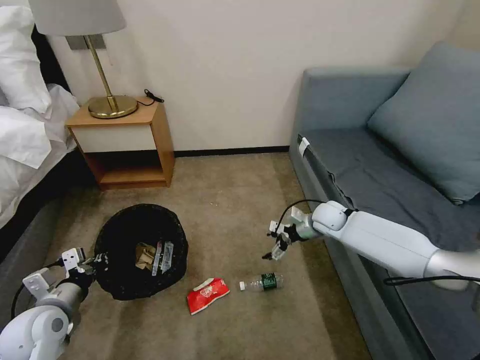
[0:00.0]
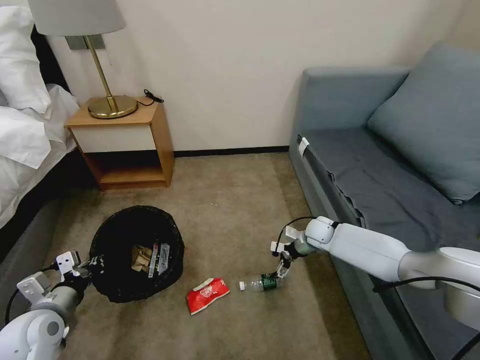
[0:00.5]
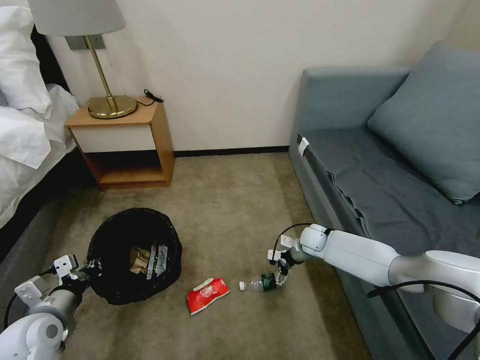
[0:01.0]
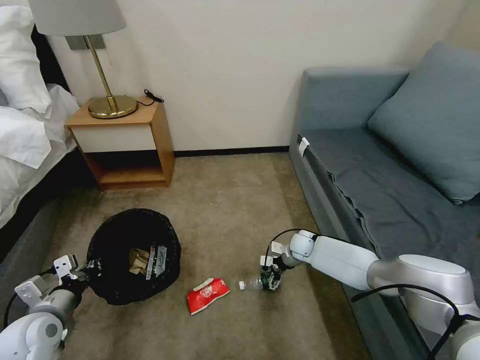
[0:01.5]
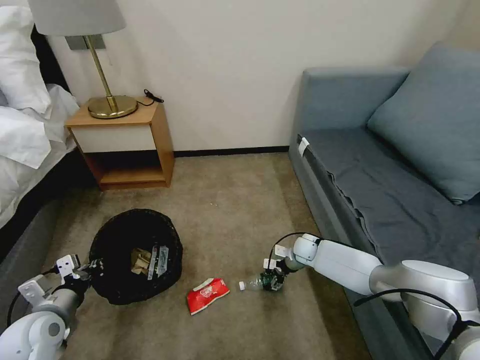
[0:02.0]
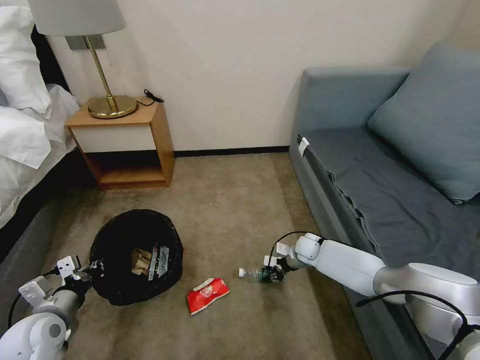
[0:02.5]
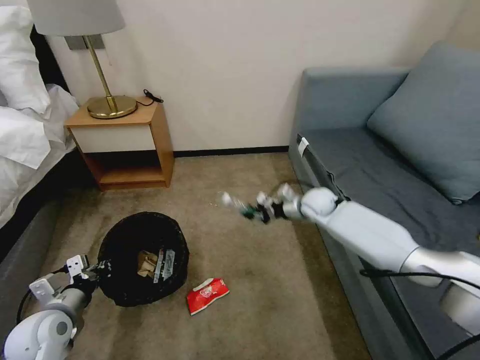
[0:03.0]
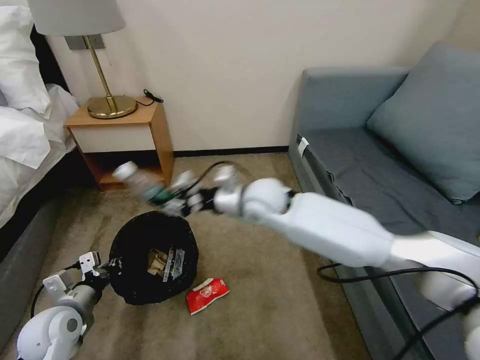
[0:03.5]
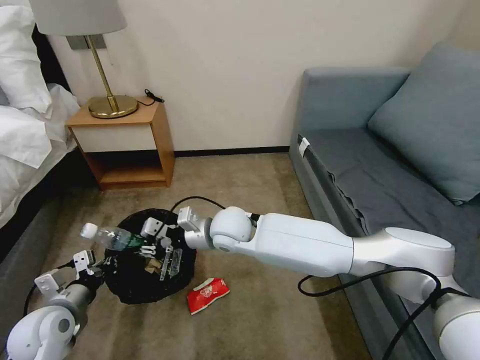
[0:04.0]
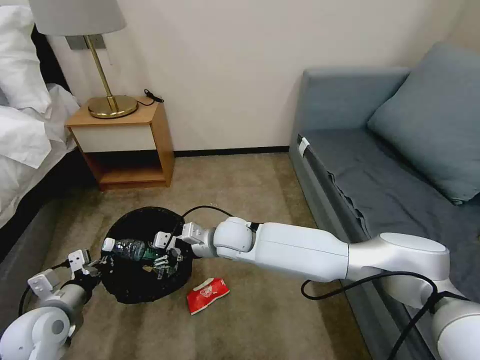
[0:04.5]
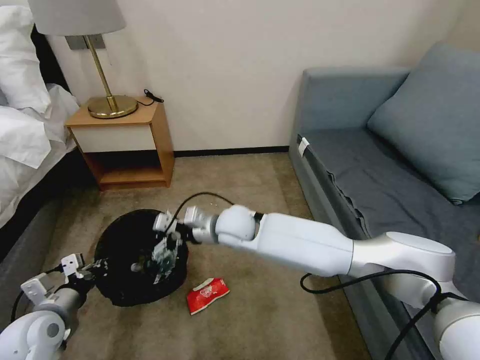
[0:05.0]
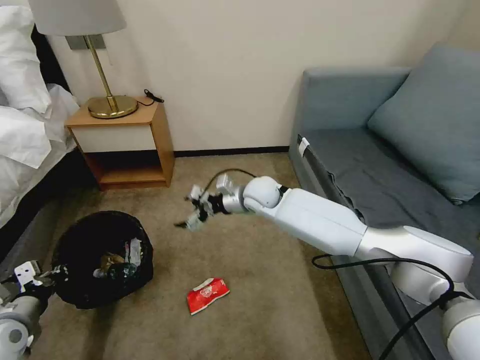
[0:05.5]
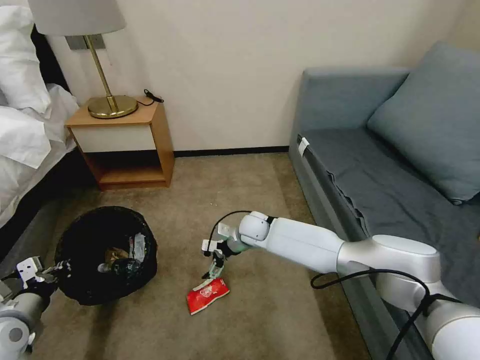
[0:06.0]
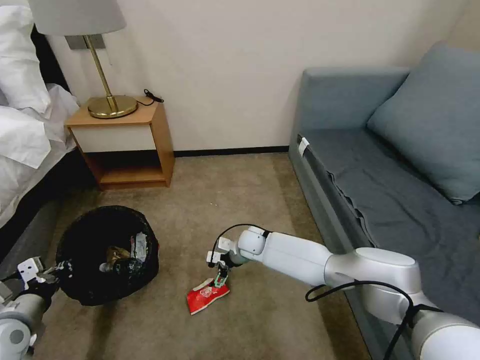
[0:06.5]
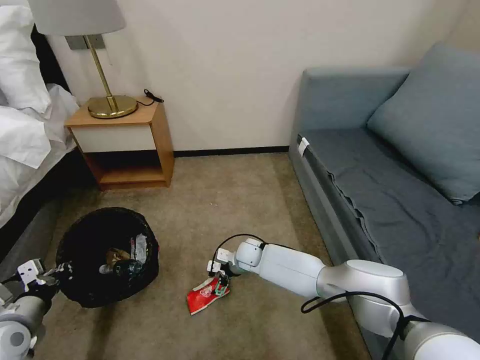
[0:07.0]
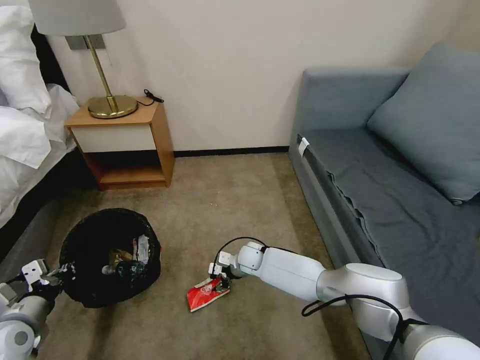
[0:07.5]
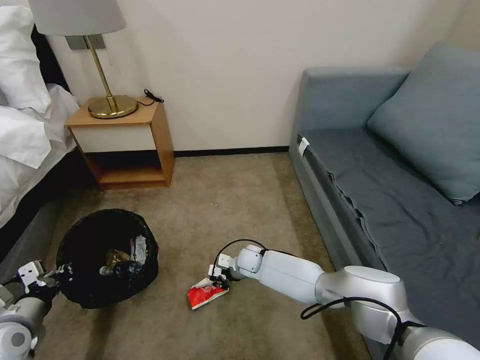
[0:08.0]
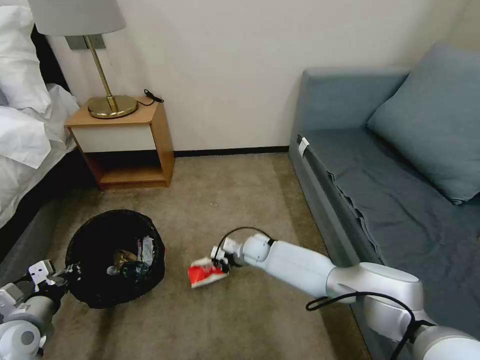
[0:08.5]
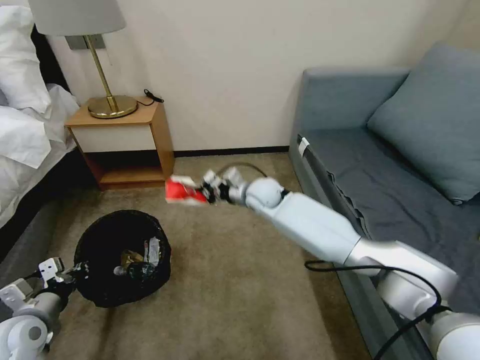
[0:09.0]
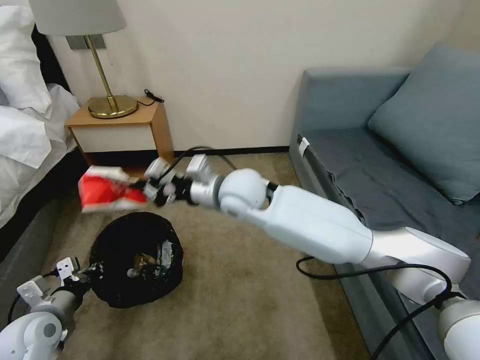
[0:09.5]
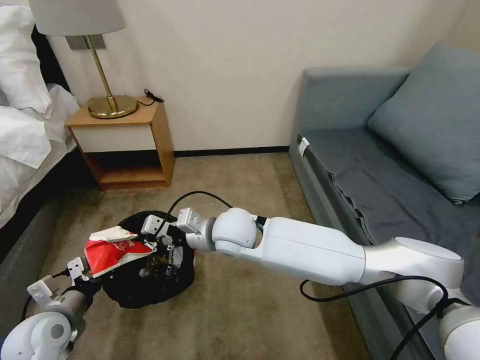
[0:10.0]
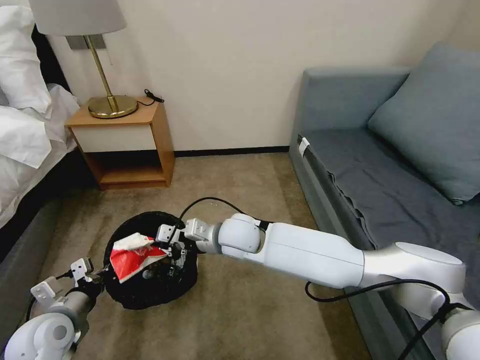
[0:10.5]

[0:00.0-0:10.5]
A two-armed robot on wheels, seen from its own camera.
Task of the whole recording: Pick up the trash bin, then pick up the garbage on the floor and place it into the trash bin.
0:00.0 to 0:02.0: The right gripper goes roughly 15 cm downward.
0:02.0 to 0:04.0: The right gripper heads to the left and upward, covering about 35 cm, and closes up.
0:04.0 to 0:06.5: The left gripper moves to the left, some 5 cm. The right gripper goes roughly 20 cm downward and forward, and opens up.
0:06.5 to 0:08.5: The right gripper closes.
0:08.5 to 0:10.5: The left gripper heads to the right, covering some 5 cm; the right gripper shifts approximately 20 cm upward and backward.

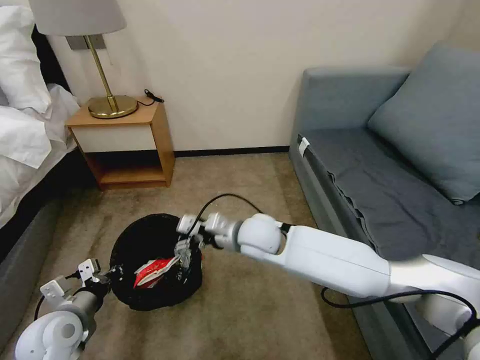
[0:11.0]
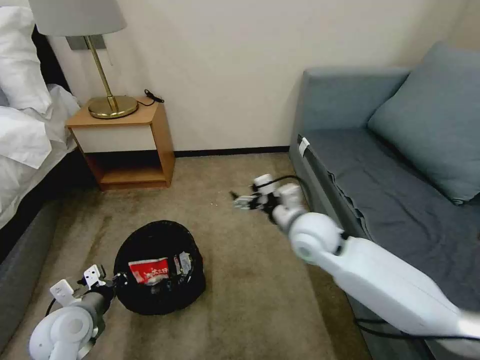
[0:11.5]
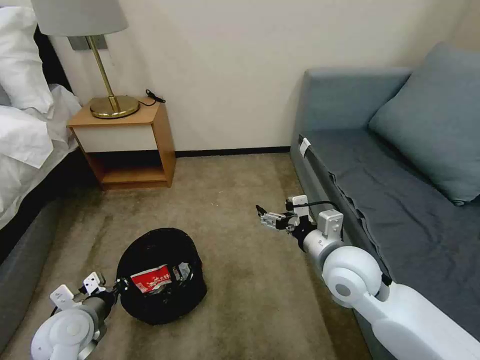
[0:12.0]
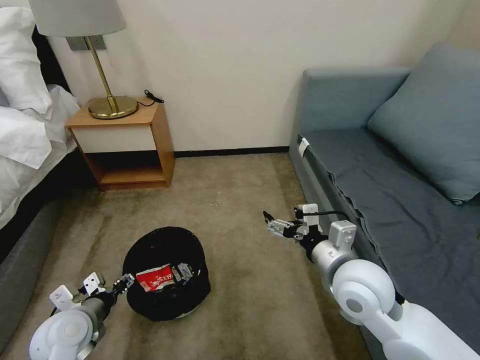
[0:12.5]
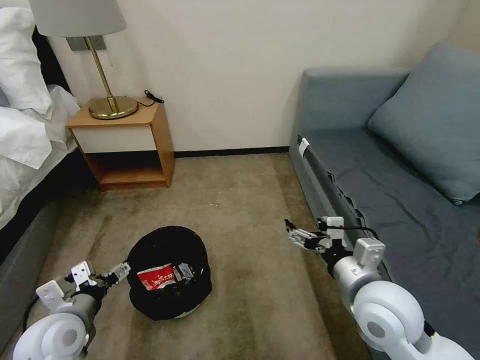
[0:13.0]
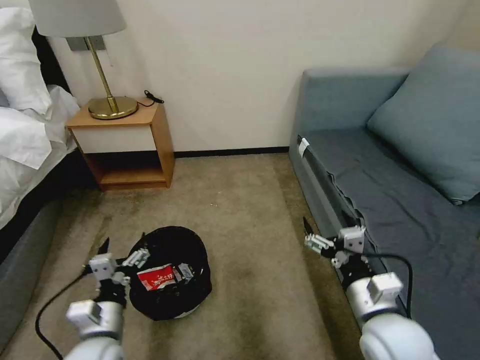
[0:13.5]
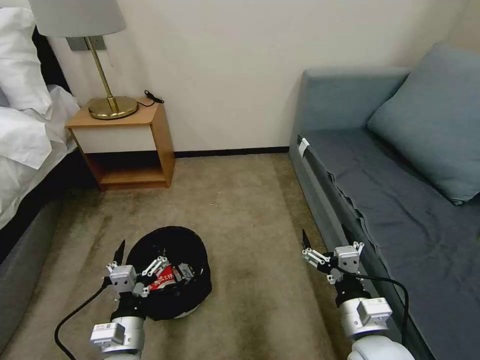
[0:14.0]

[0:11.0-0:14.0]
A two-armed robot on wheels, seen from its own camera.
Task of the whole recording: Pick up the trash bin, then pick up the garbage on the floor and place it into the trash bin.
0:11.0 to 0:12.5: The left gripper opens its fingers, while the right gripper travels to the right and backward by some 20 cm.
0:12.5 to 0:14.0: The right gripper travels backward and downward by about 15 cm, while the left gripper travels to the right and backward by approximately 15 cm.

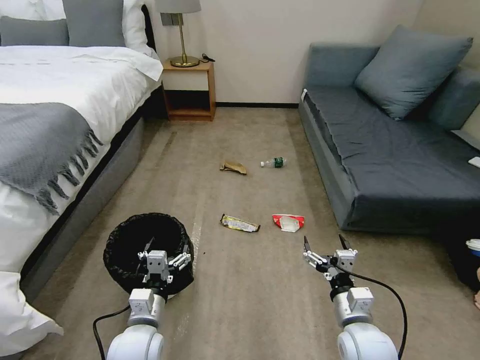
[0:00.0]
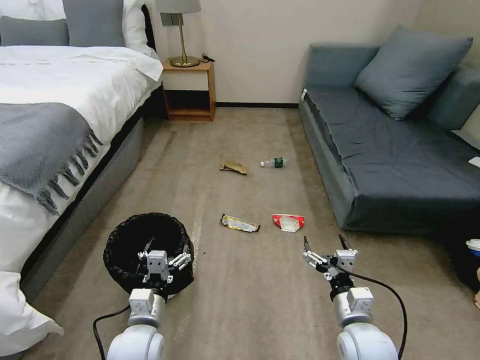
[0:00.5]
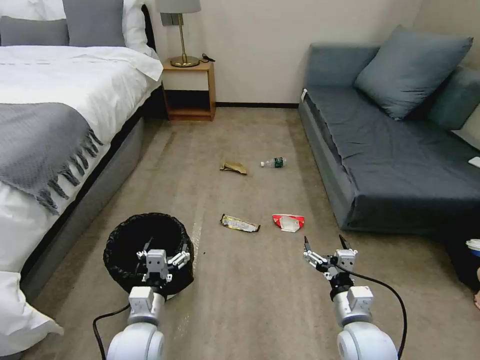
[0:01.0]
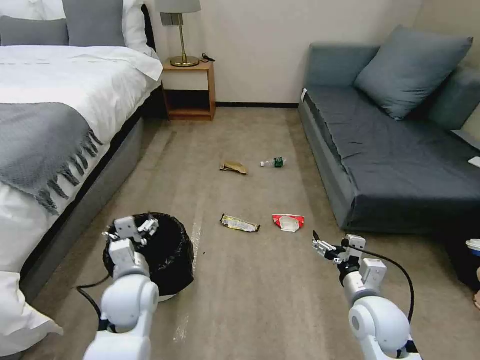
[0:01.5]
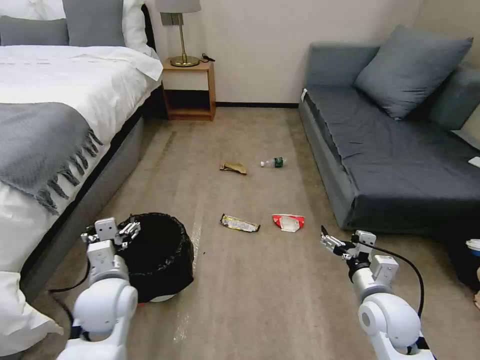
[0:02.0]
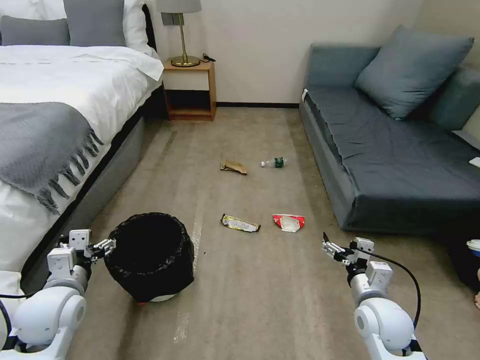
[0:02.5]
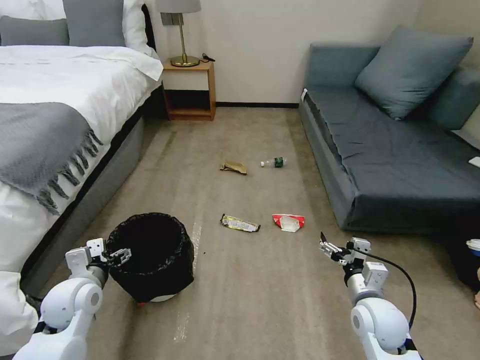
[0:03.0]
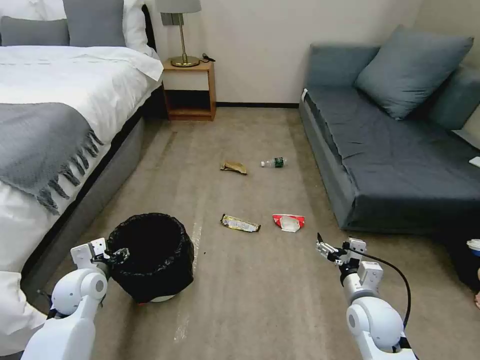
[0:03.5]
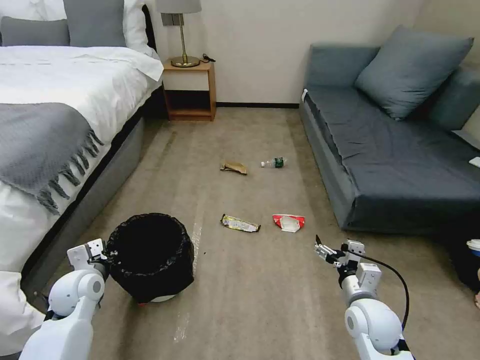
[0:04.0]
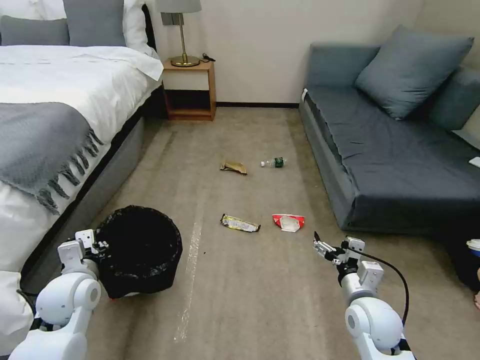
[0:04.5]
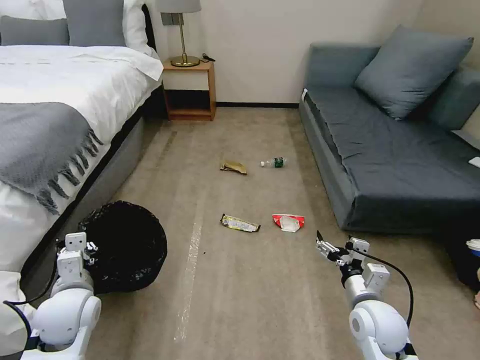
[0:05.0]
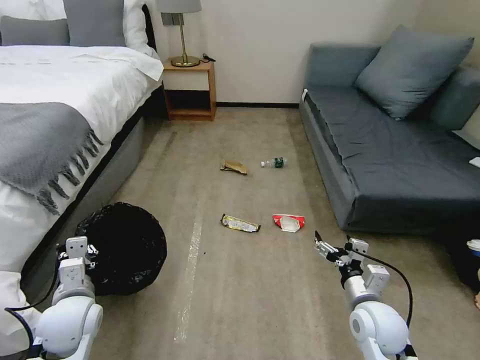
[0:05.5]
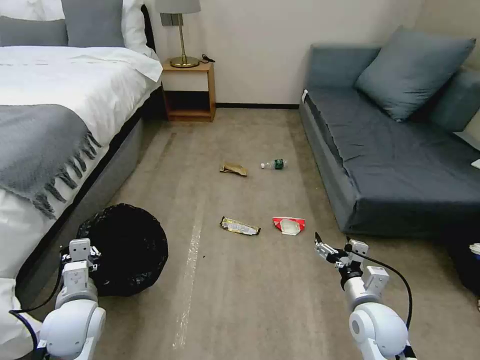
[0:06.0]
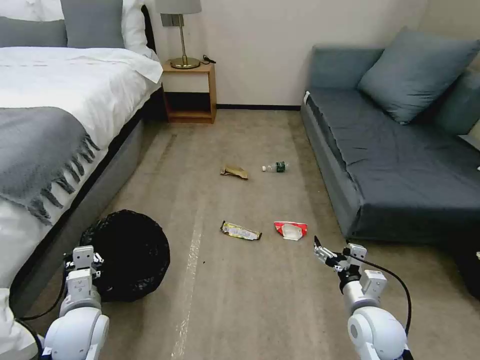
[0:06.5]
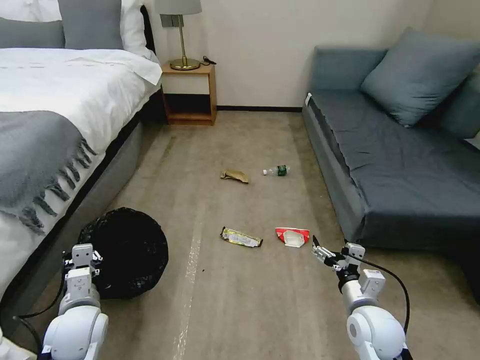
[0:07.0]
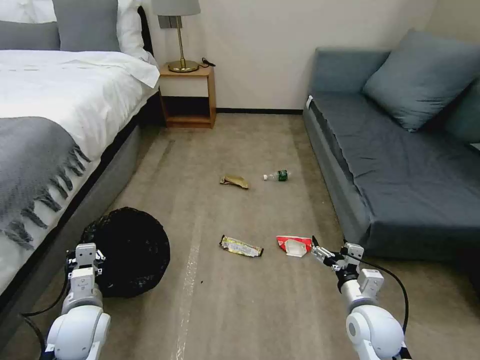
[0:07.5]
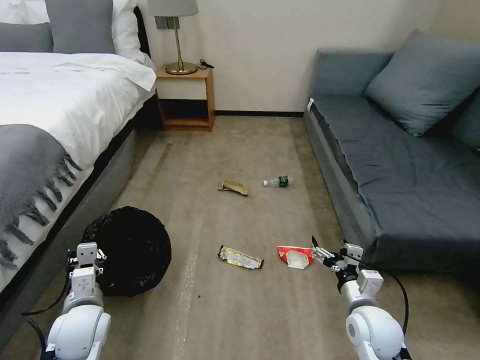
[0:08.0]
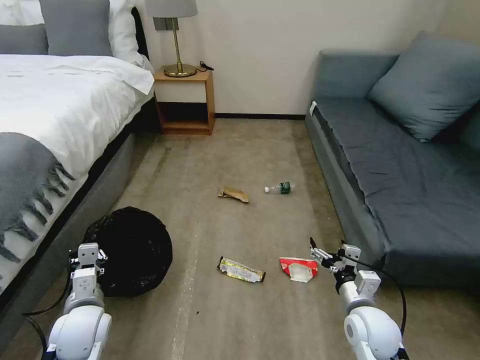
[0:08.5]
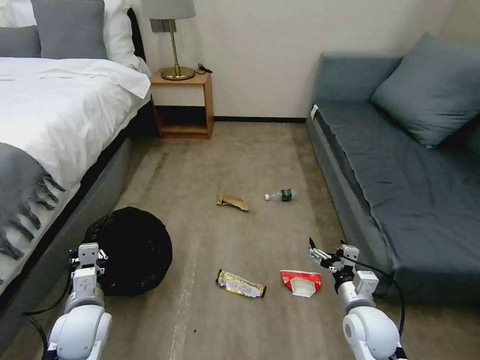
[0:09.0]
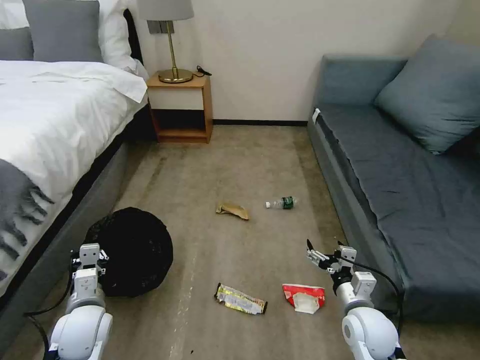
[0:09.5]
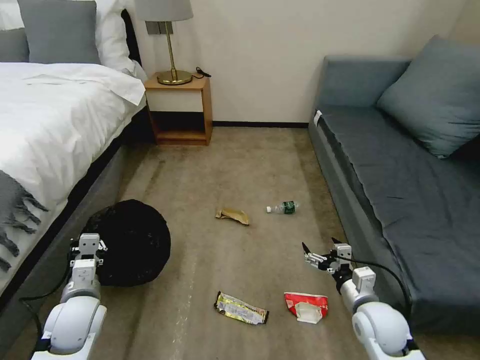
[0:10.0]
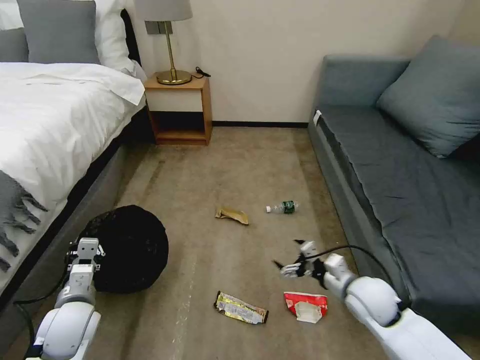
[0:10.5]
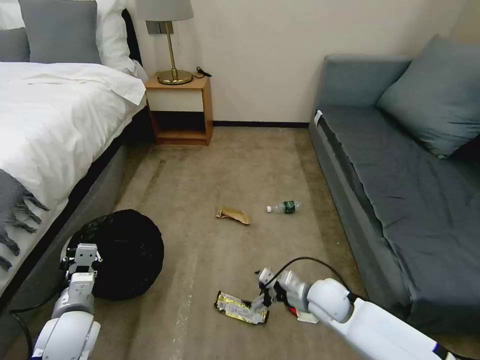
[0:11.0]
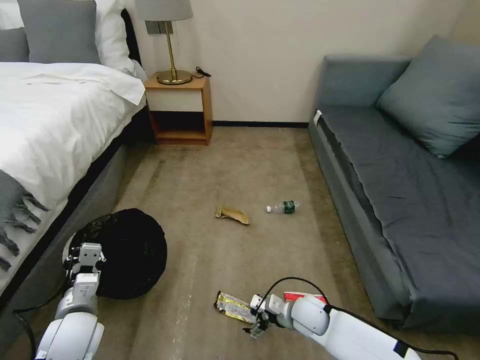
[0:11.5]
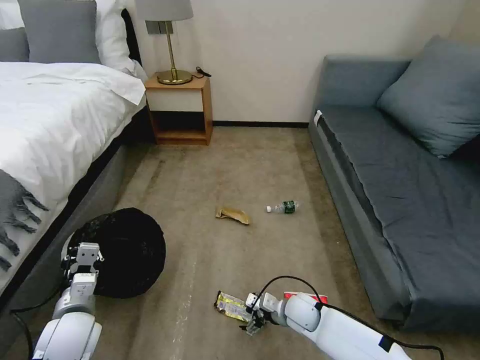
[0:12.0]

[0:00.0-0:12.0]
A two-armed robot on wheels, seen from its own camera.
Task of the whole recording: Pick up the trash bin, then pick up the garbage on the floor and place it into the trash bin.
0:02.0 to 0:04.0: The left gripper moves to the left and downward, about 10 cm, and closes its fingers.
0:04.0 to 0:06.0: The left gripper goes approximately 5 cm backward.
0:10.0 to 0:12.0: The right gripper goes about 20 cm to the left, downward and forward.
